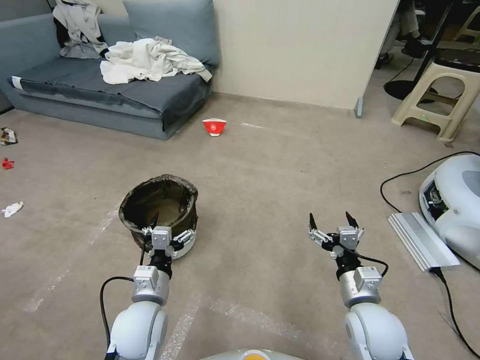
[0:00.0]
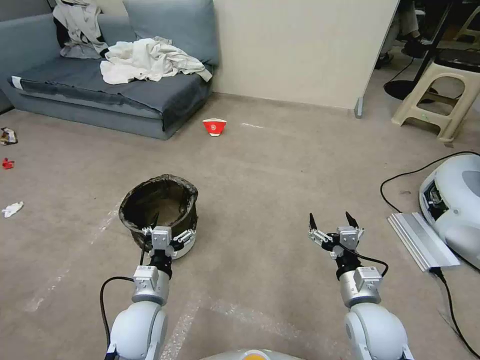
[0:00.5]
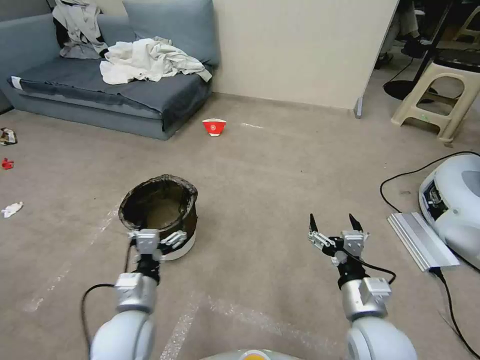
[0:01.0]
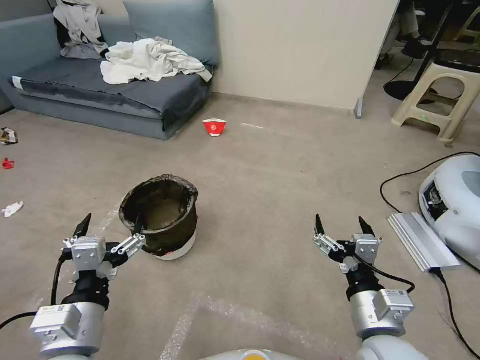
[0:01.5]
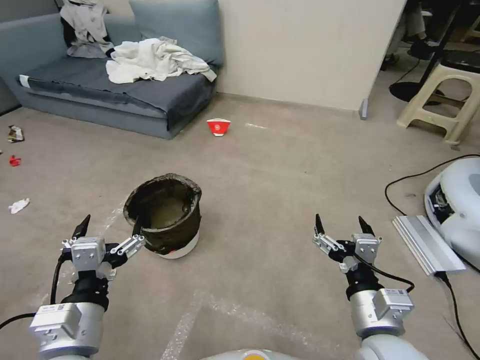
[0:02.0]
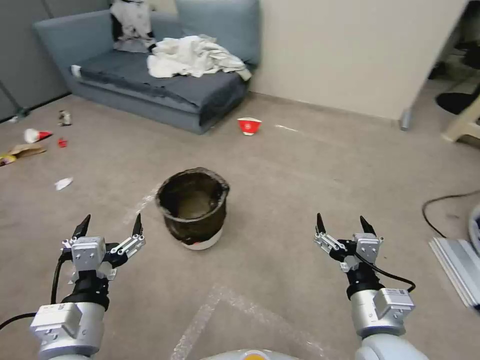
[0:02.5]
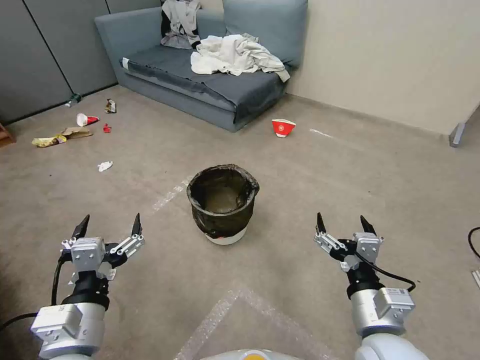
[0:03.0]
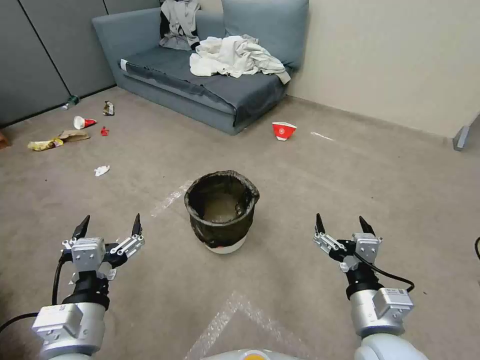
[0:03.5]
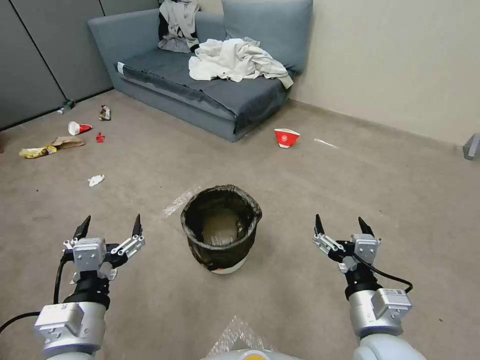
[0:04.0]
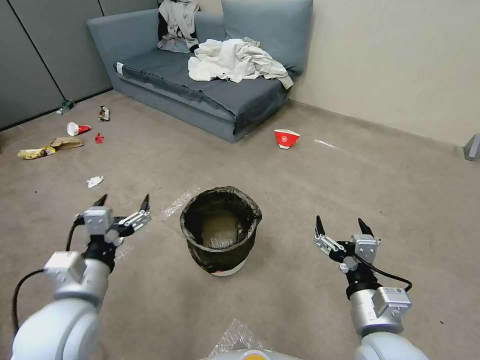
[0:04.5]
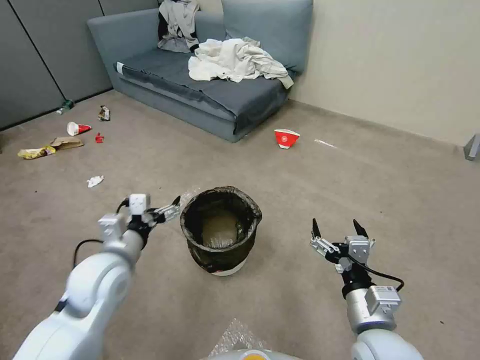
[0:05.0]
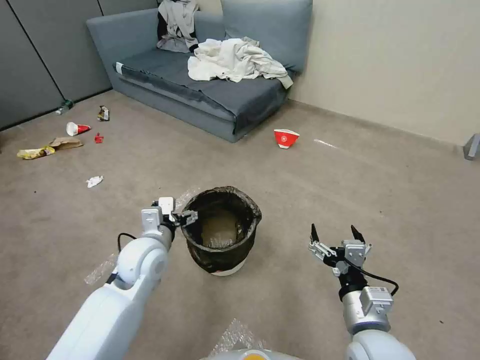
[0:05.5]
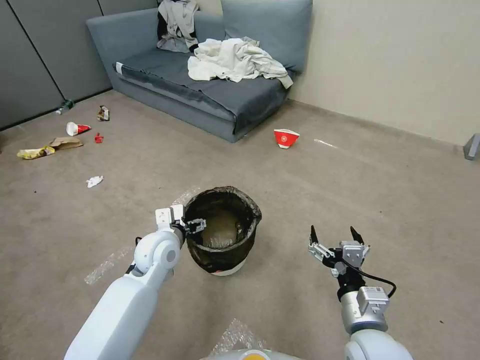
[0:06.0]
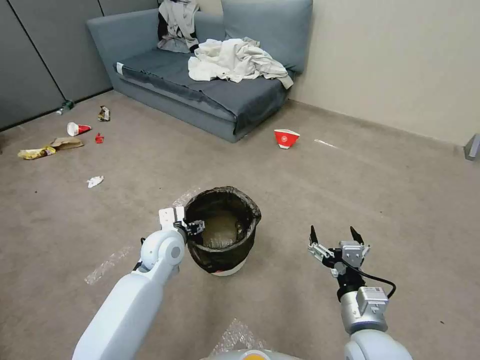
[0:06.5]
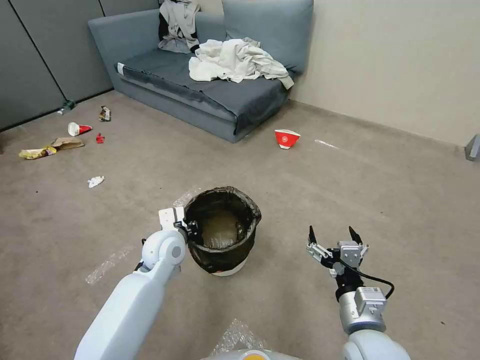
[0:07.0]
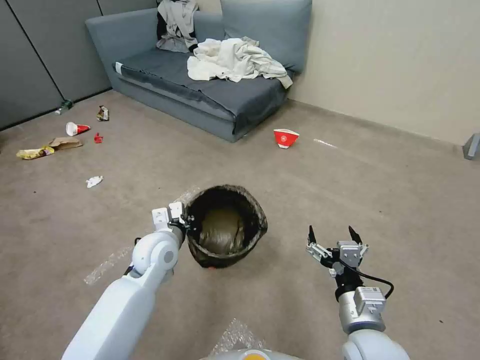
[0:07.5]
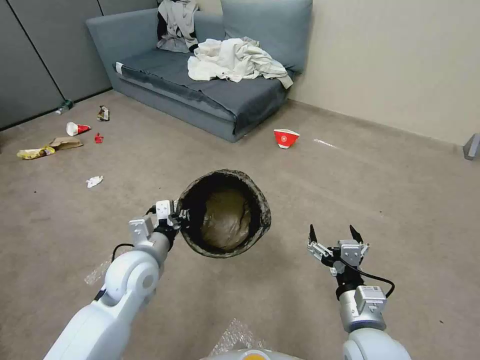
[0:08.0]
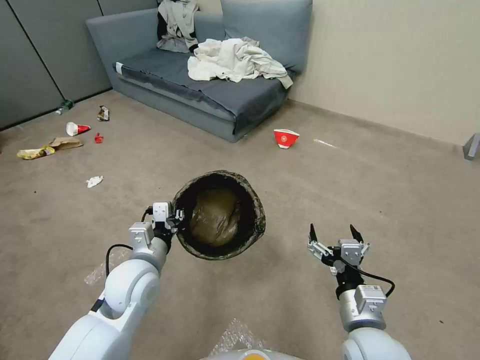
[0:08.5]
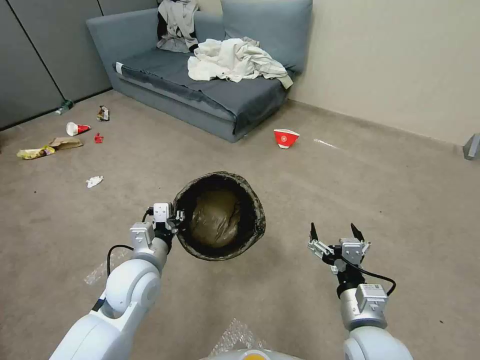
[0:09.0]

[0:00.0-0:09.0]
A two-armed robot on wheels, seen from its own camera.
Task of the whole recording: Pick up the trash can from the floor.
0:02.0 to 0:04.5: The left gripper moves forward, approximately 5 cm.
0:04.5 to 0:07.0: The left gripper travels forward, downward and to the right by about 25 cm, and closes its fingers.
0:07.0 to 0:09.0: The left gripper heads backward, covering approximately 10 cm.

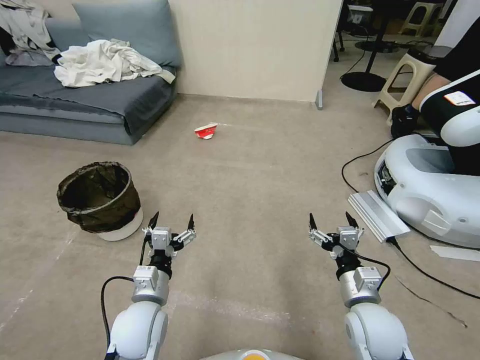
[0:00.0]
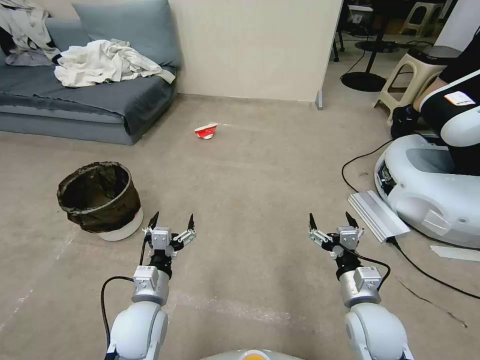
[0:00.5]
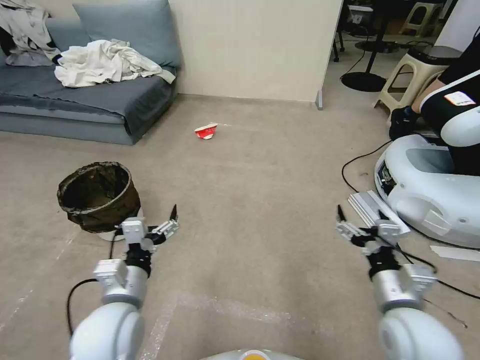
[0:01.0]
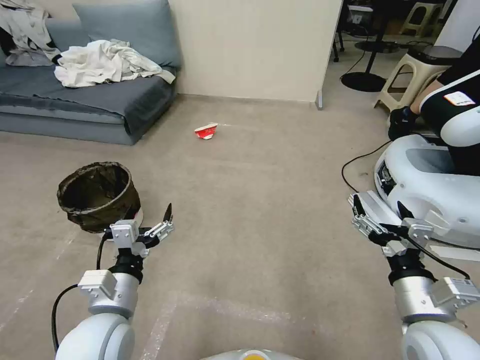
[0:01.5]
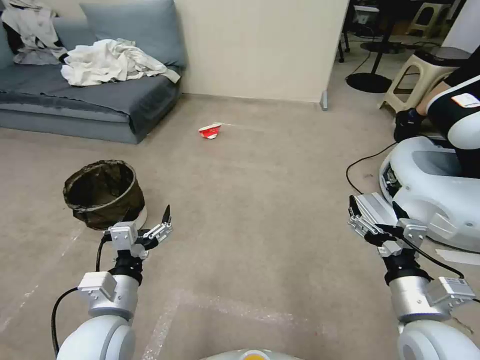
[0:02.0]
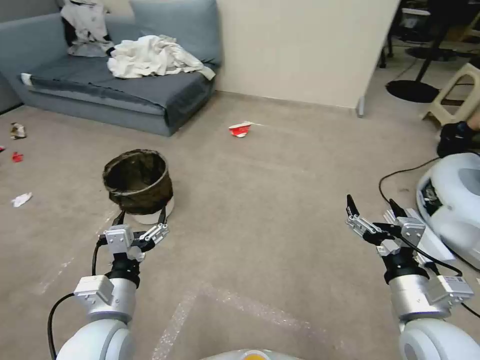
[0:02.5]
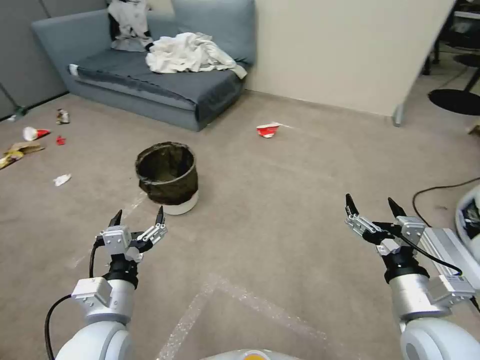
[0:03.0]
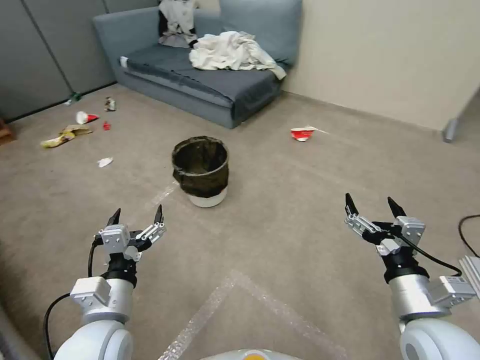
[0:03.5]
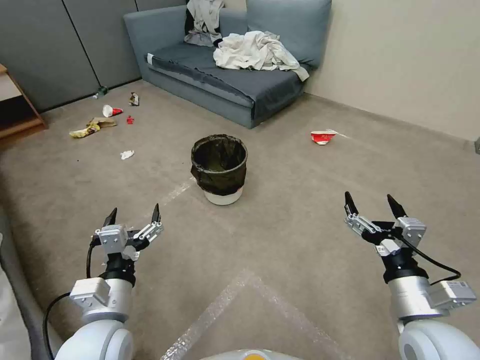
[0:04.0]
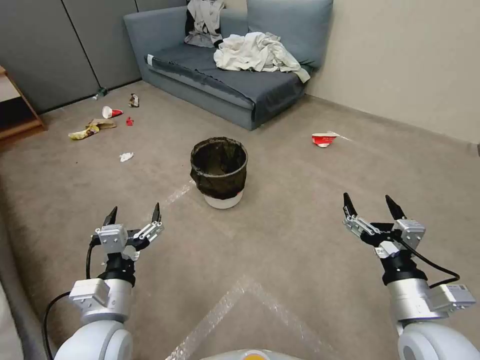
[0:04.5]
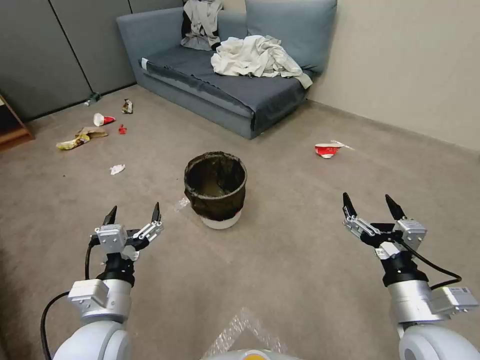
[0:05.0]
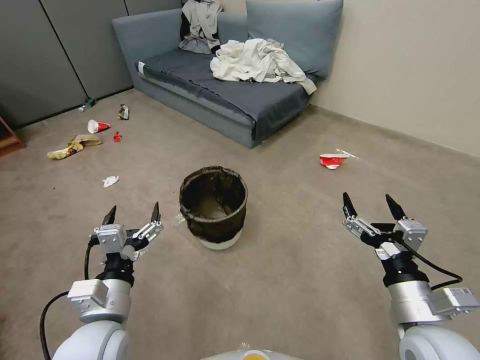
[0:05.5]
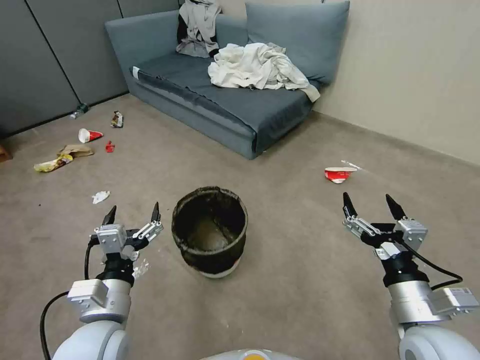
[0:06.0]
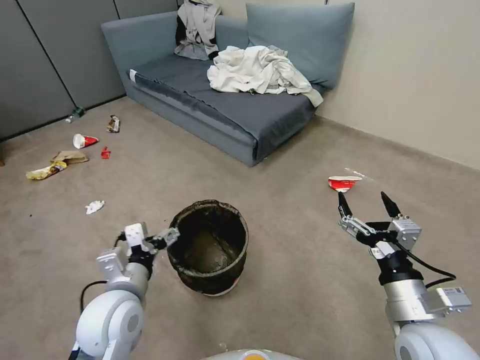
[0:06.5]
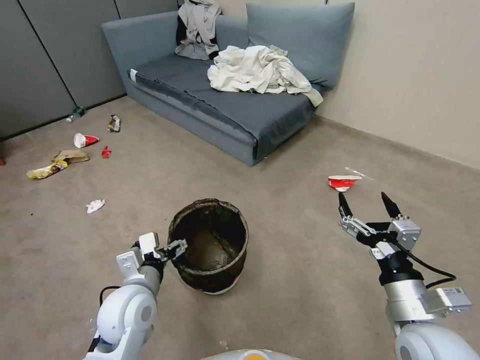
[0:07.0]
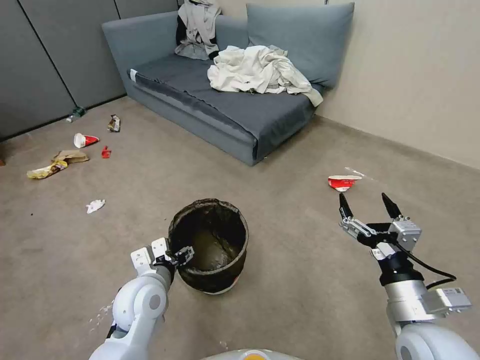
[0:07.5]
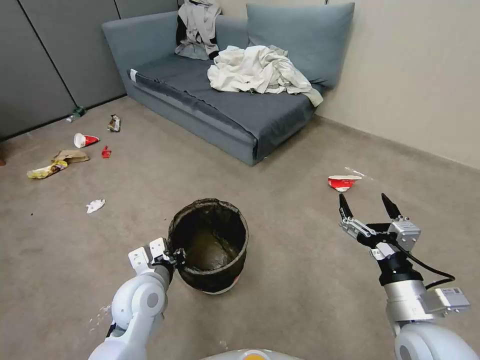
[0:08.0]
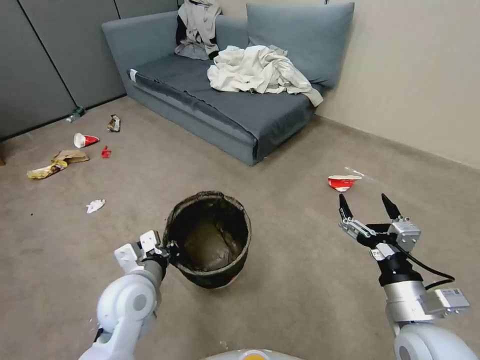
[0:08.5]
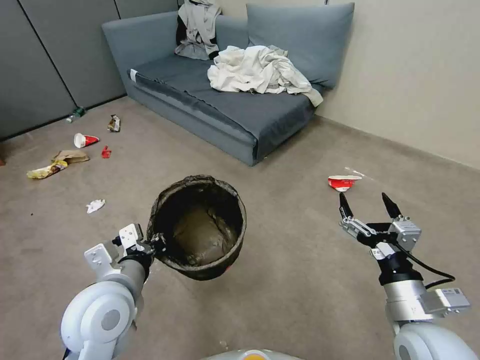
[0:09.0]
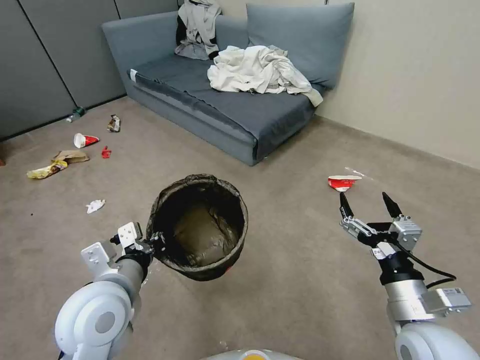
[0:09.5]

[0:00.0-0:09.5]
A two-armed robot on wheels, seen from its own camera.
Task of the whole recording: Pick up the trash can from the floor.
0:05.5 to 0:07.5: The left gripper shifts some 10 cm forward and downward.
0:07.5 to 0:09.5: The left gripper is displaced upward by about 10 cm, and closes its fingers.

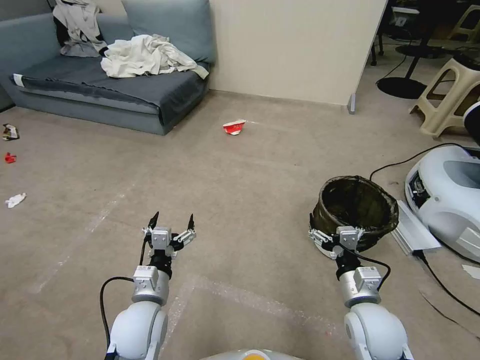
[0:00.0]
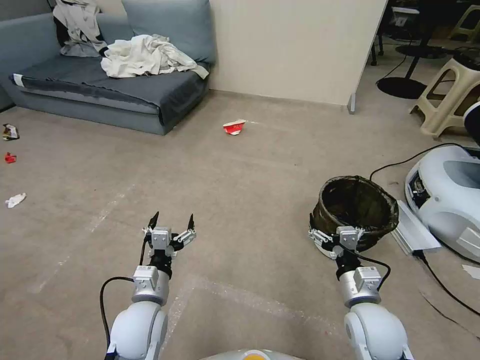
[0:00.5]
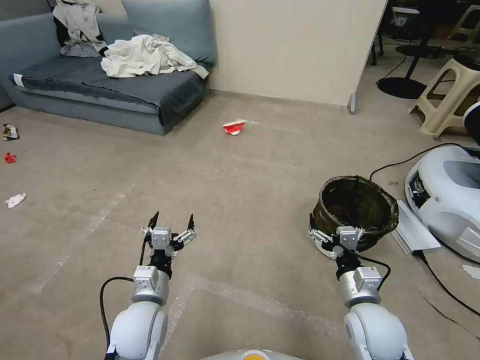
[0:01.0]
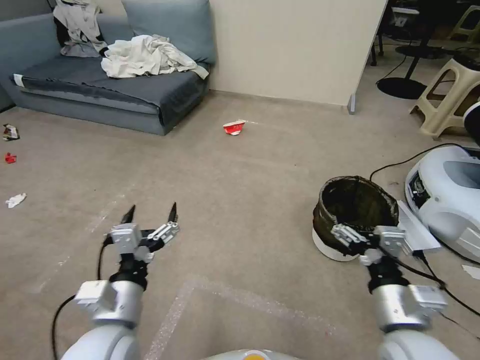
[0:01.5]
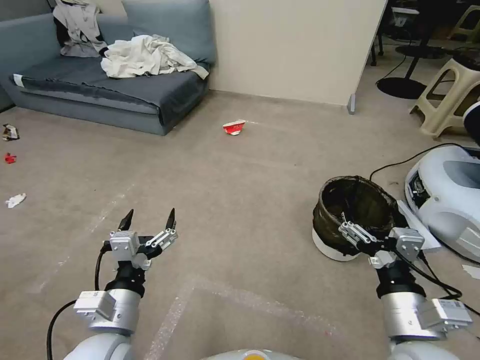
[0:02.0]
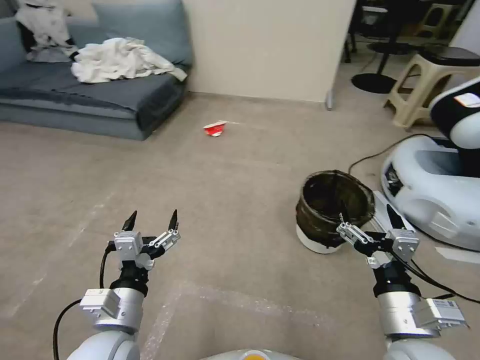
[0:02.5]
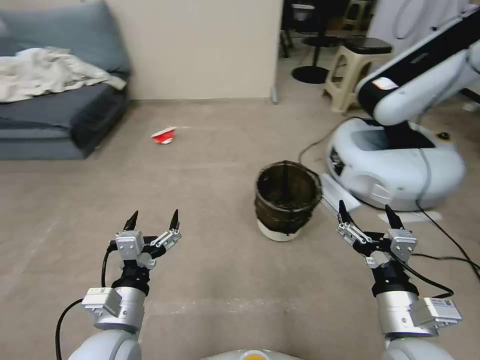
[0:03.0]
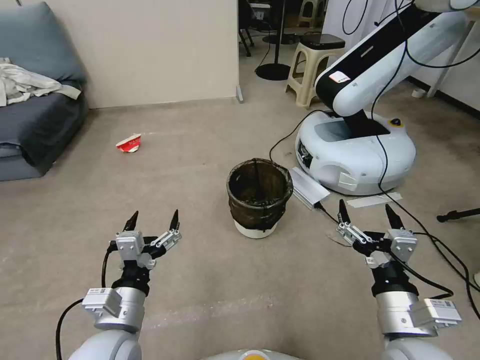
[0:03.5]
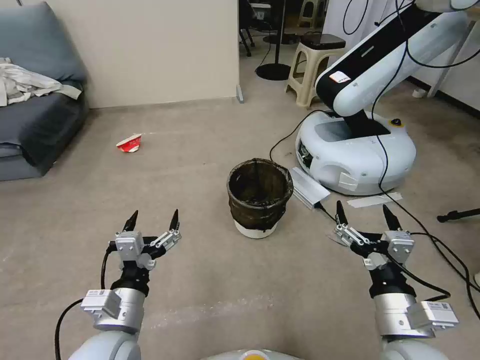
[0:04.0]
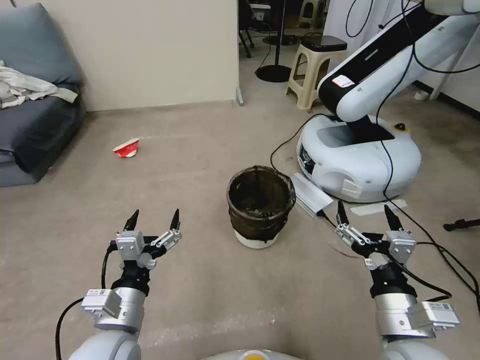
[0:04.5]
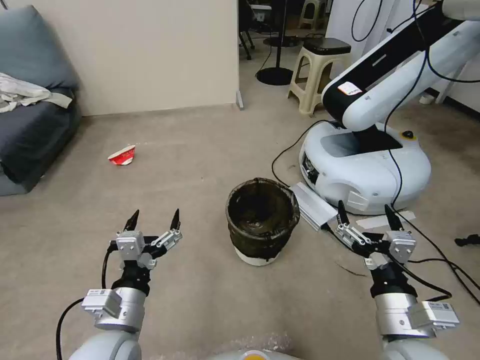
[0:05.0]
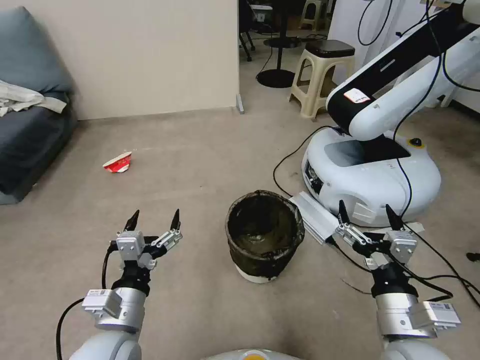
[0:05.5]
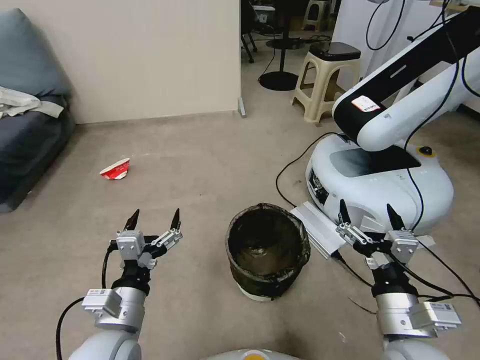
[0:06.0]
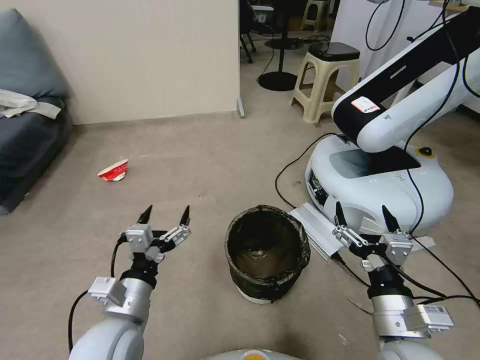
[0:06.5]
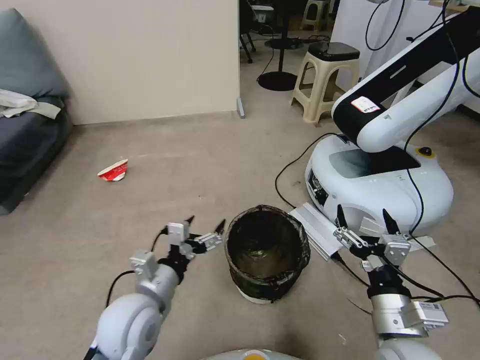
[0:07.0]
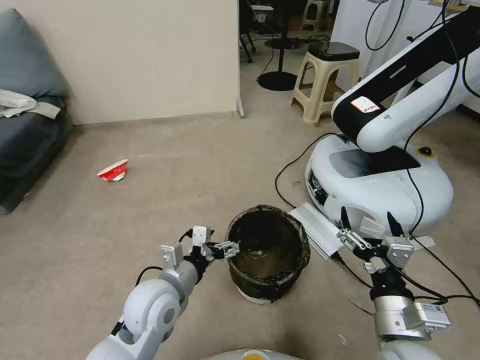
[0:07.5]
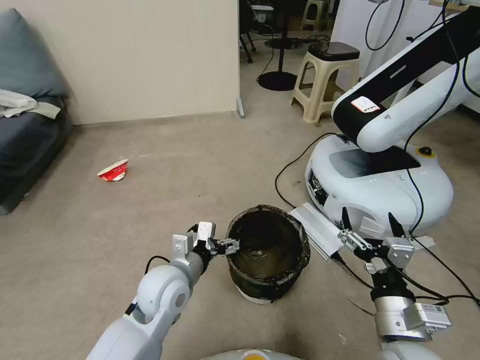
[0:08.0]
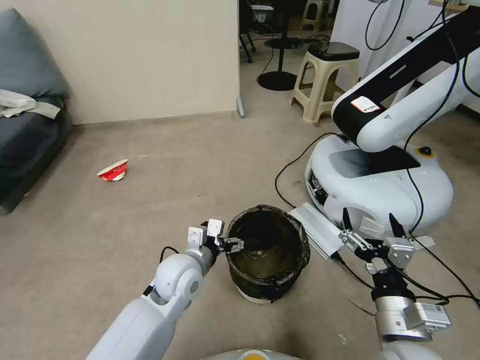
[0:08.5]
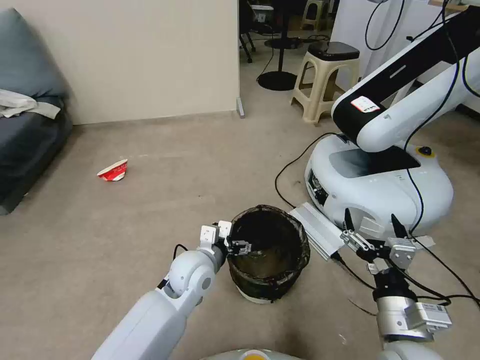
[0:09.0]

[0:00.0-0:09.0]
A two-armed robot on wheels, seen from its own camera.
Task of the whole recording: Pick up the trash can from the floor.
0:04.5 to 0:07.0: The left gripper goes some 5 cm forward.
0:07.0 to 0:09.0: The left gripper is displaced forward and to the right by some 15 cm.
